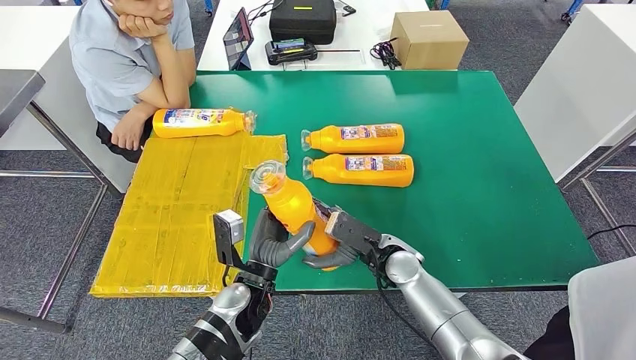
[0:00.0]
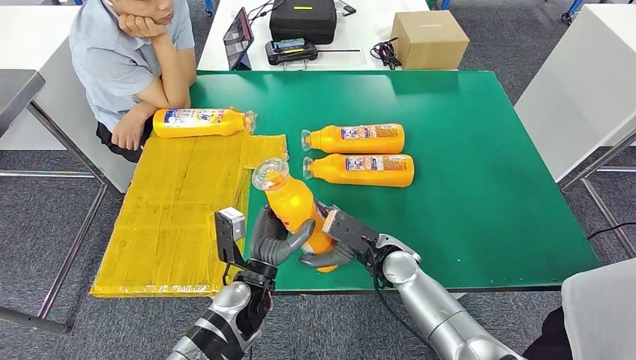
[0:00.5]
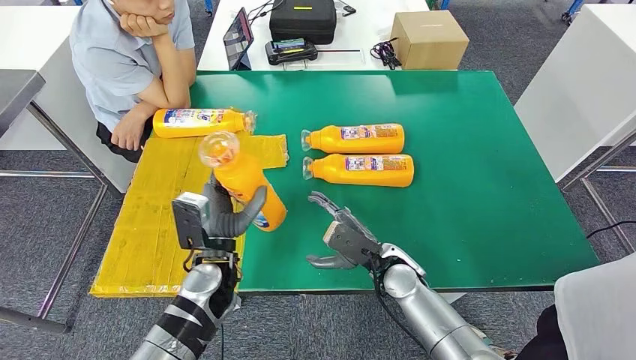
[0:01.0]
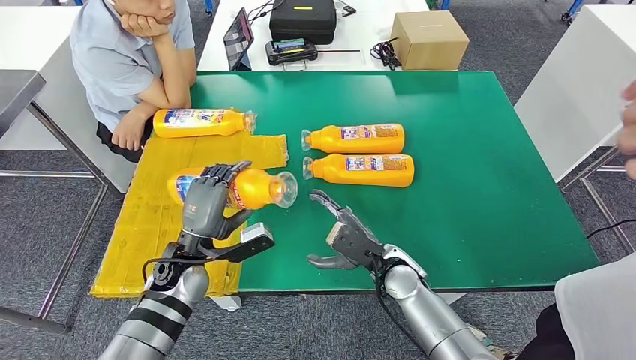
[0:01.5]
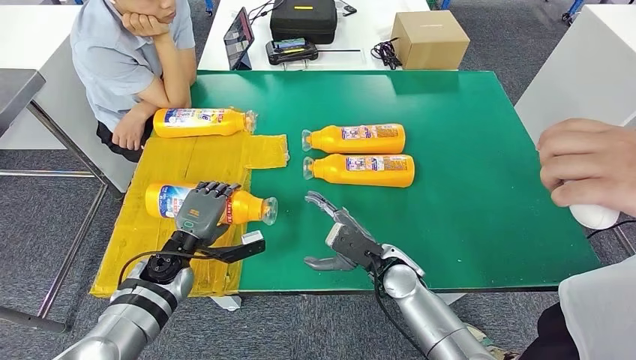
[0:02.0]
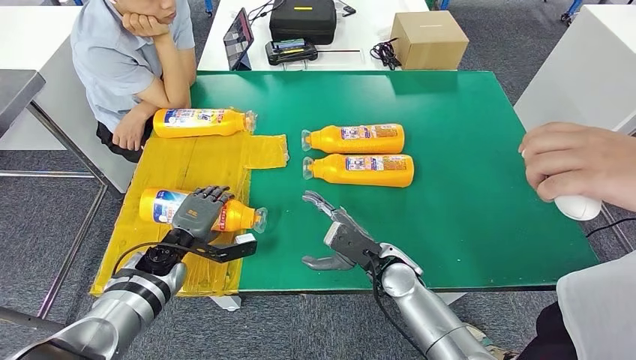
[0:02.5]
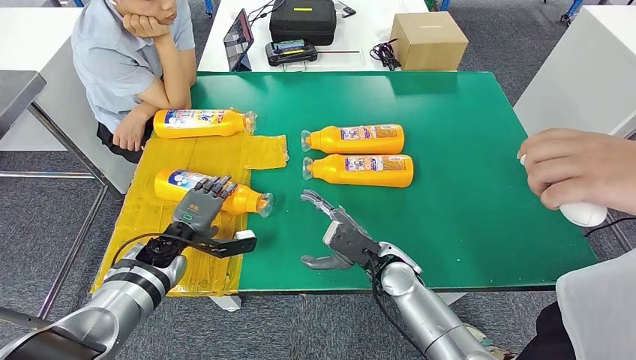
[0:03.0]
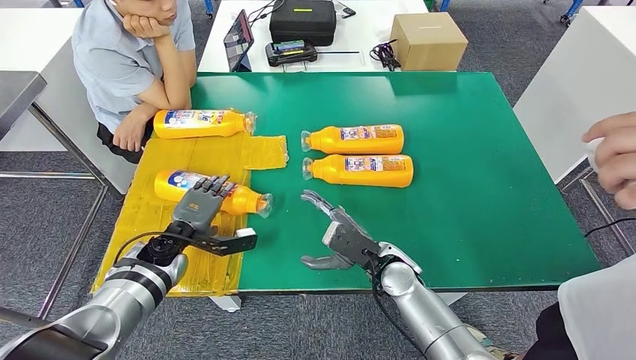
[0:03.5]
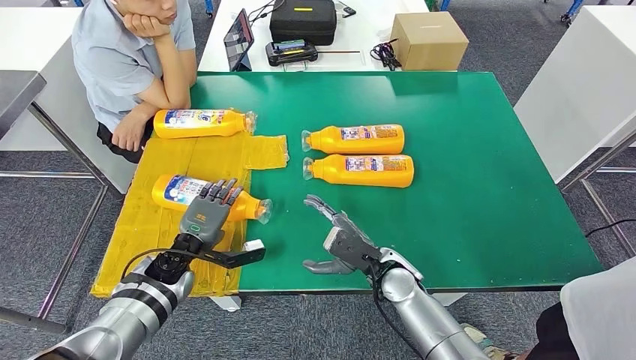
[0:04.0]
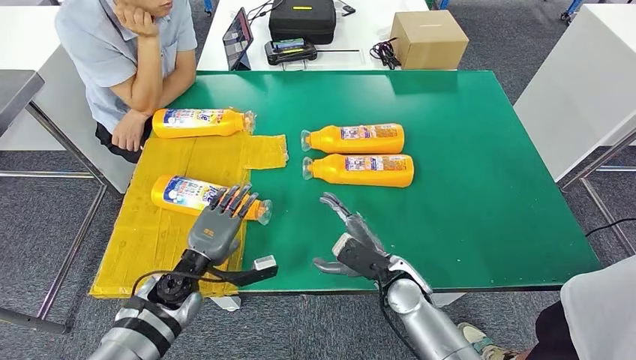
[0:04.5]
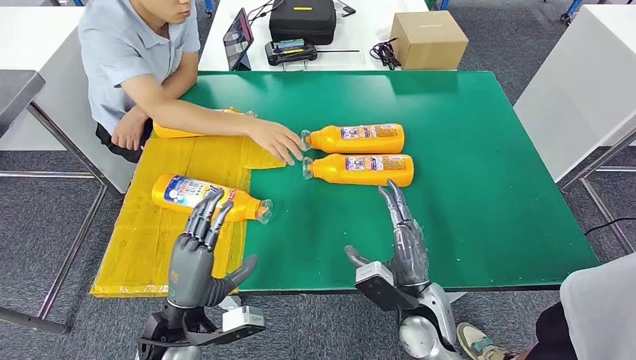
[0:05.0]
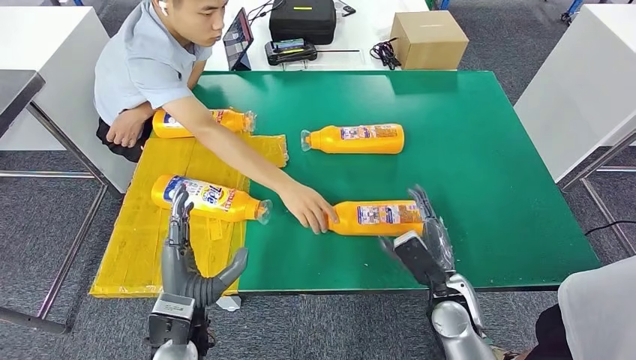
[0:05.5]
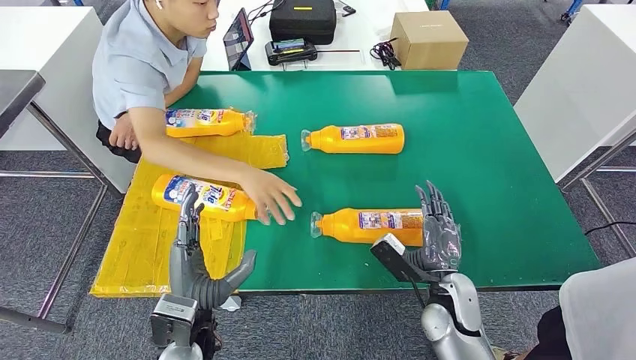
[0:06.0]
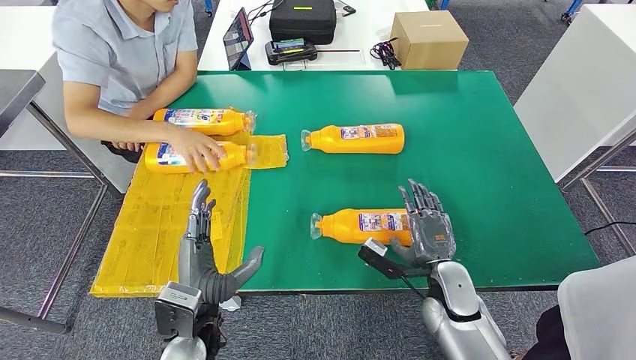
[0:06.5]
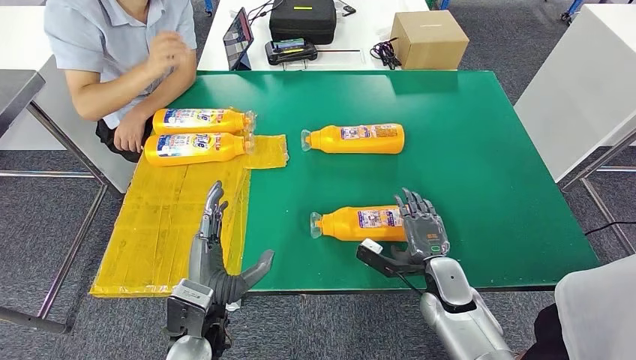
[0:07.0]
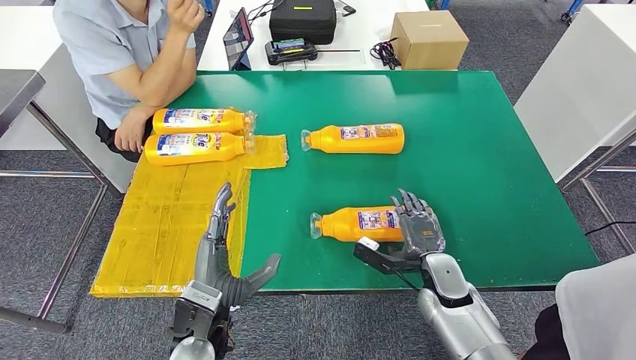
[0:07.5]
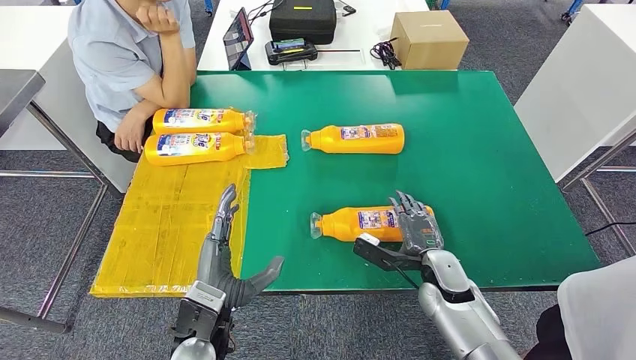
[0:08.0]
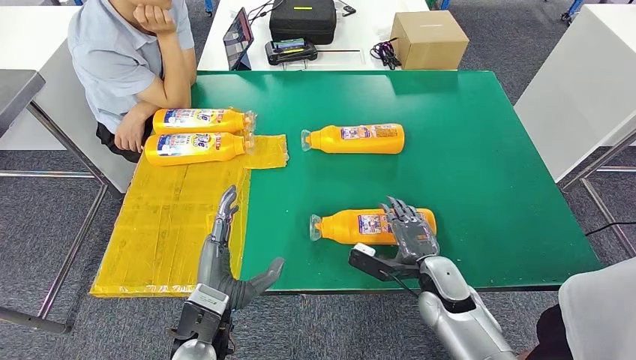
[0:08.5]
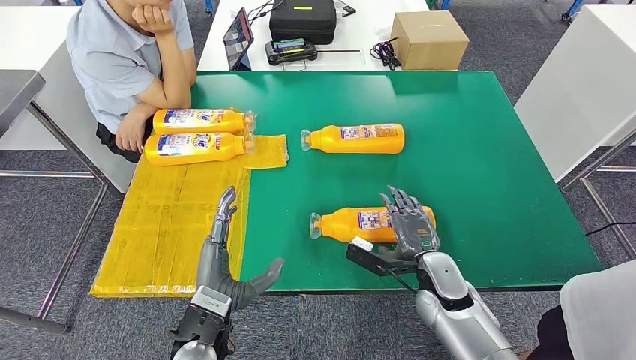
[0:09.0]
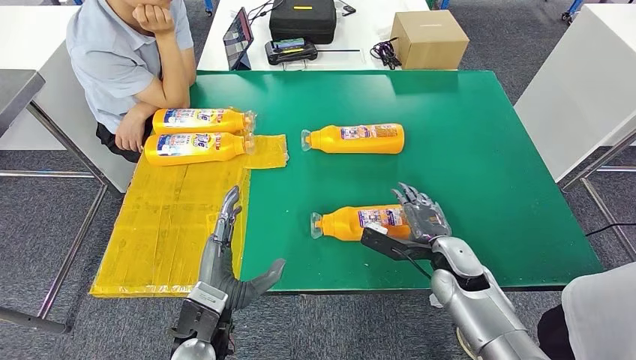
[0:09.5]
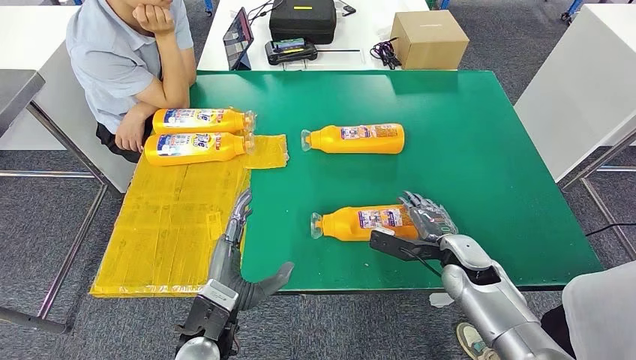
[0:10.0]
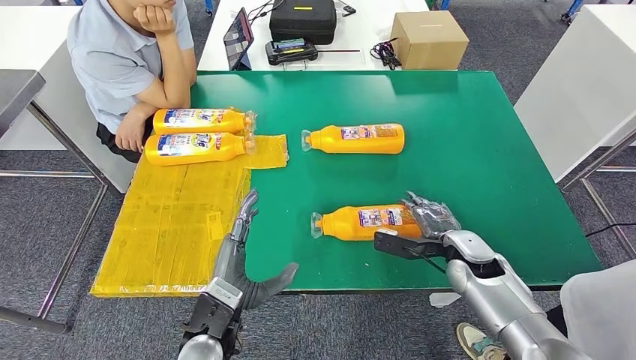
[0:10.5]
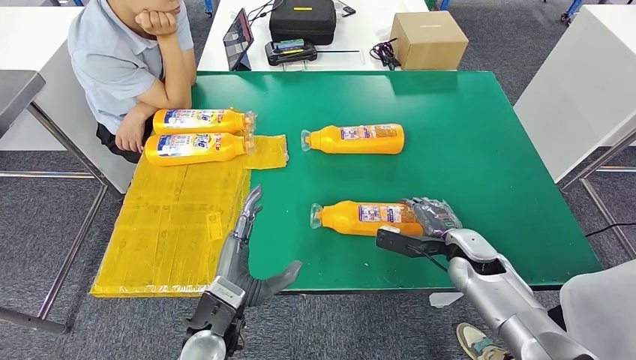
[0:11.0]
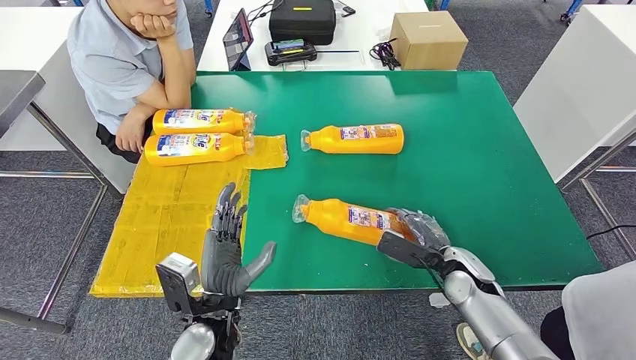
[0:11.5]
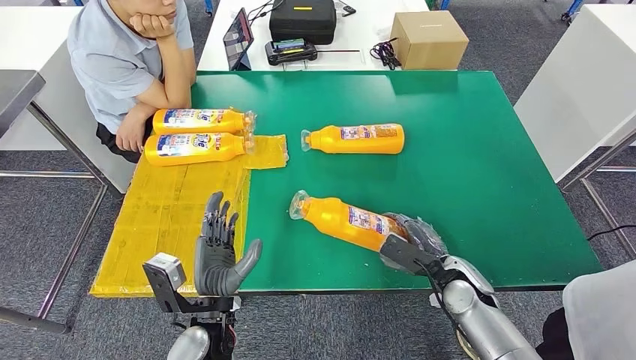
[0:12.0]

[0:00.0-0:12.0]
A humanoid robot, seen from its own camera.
Step, 0:00.0 to 0:03.5: Flip the bottle to face forward.
0:00.0 to 0:02.0: The left hand moves to the left and forward, approximately 15 cm.
0:08.0 to 0:10.0: The right hand shifts by some 5 cm.

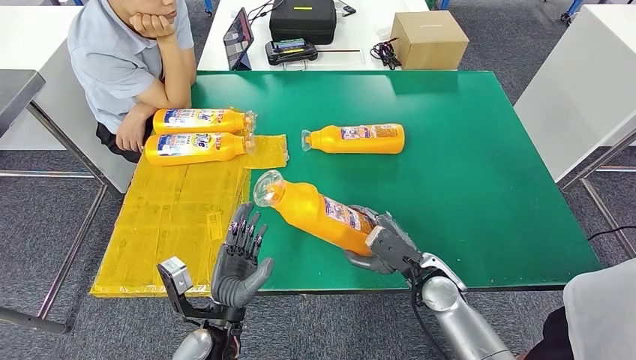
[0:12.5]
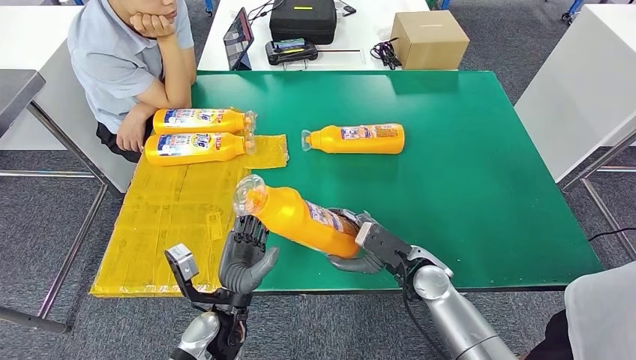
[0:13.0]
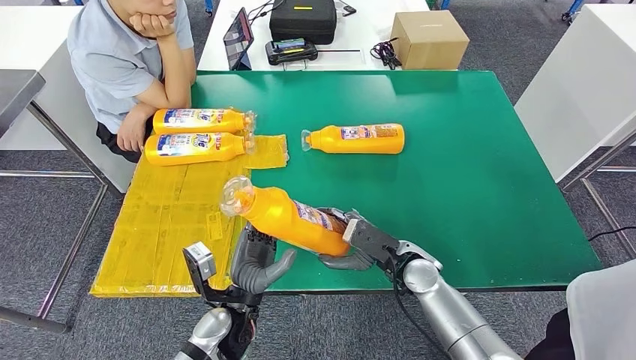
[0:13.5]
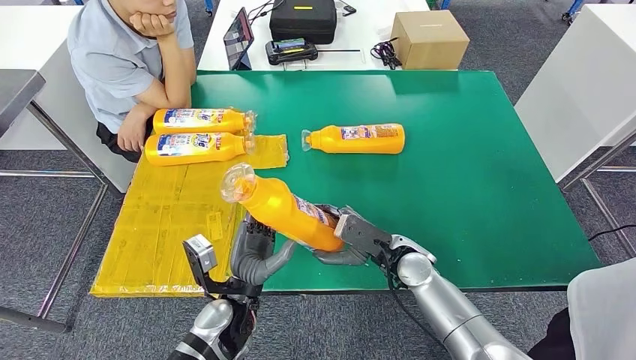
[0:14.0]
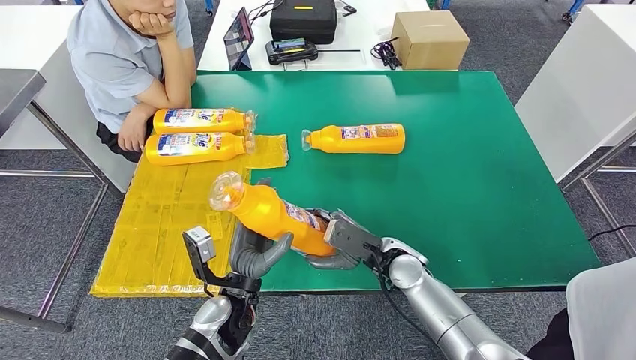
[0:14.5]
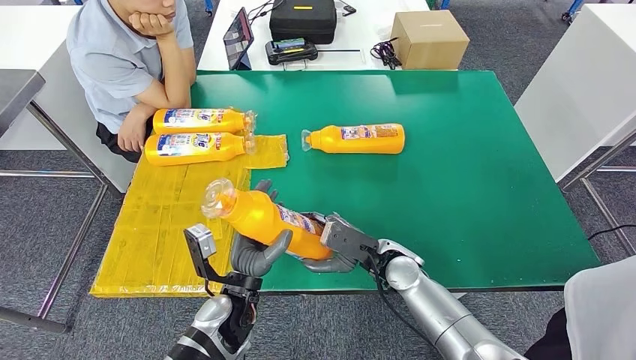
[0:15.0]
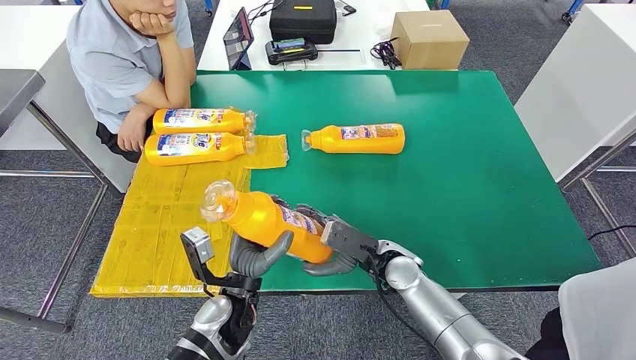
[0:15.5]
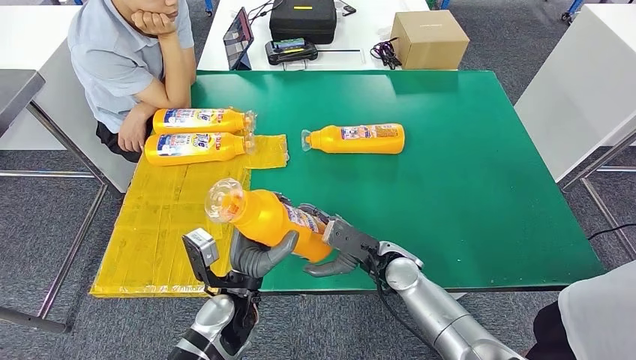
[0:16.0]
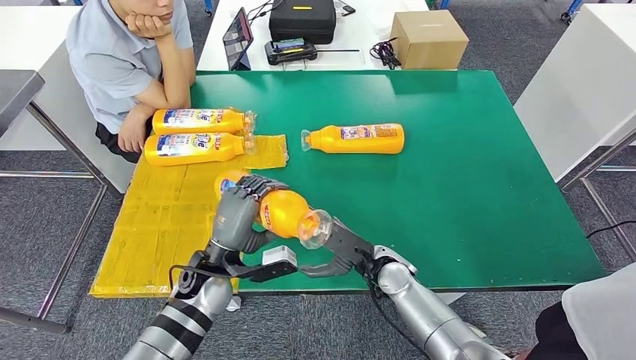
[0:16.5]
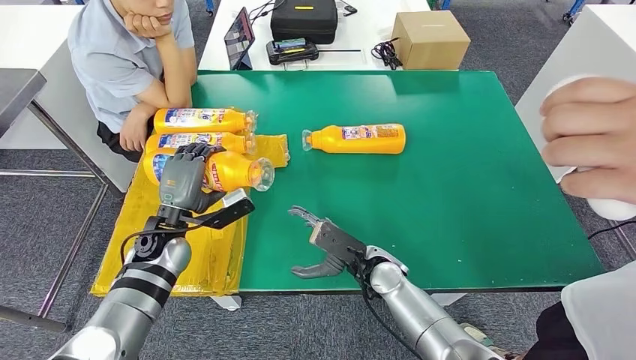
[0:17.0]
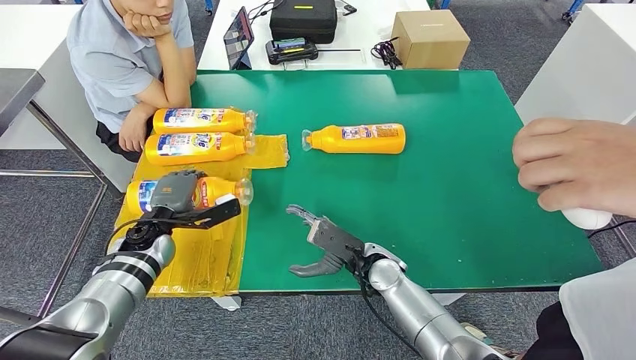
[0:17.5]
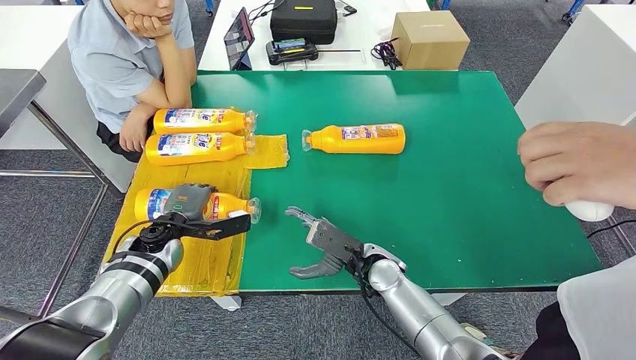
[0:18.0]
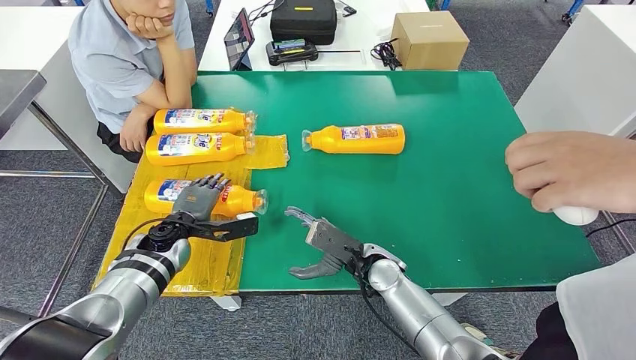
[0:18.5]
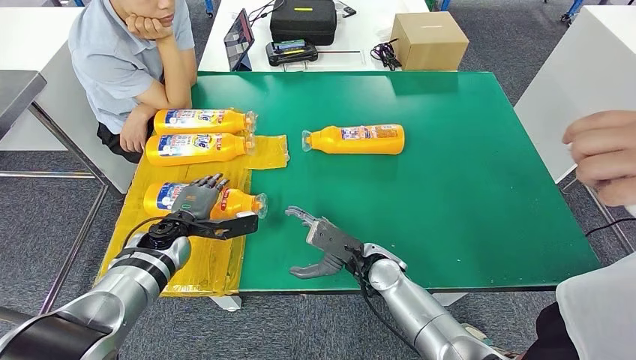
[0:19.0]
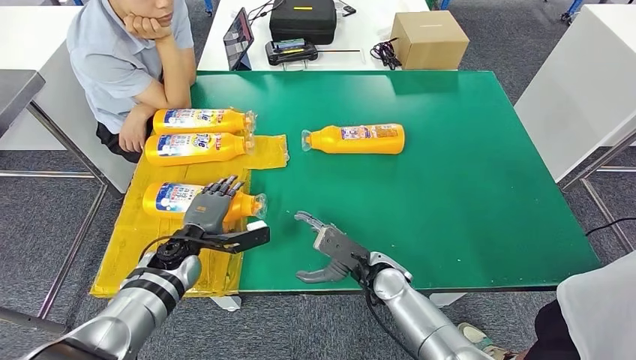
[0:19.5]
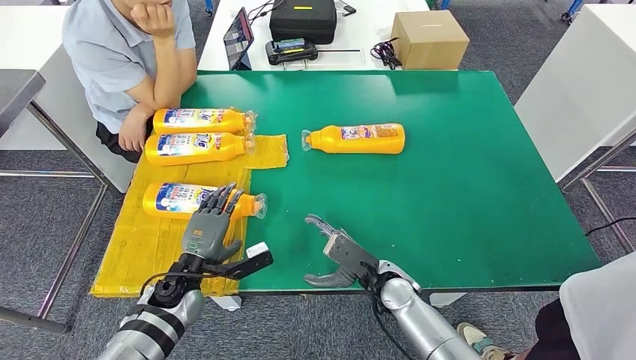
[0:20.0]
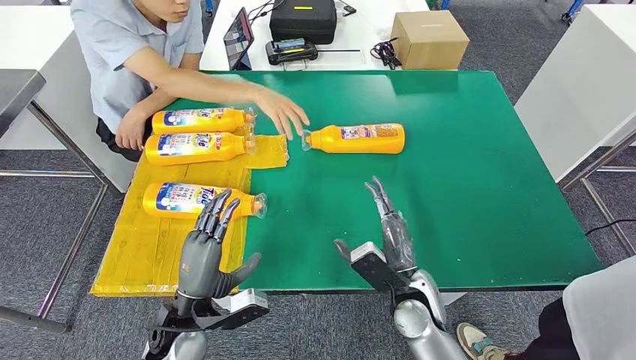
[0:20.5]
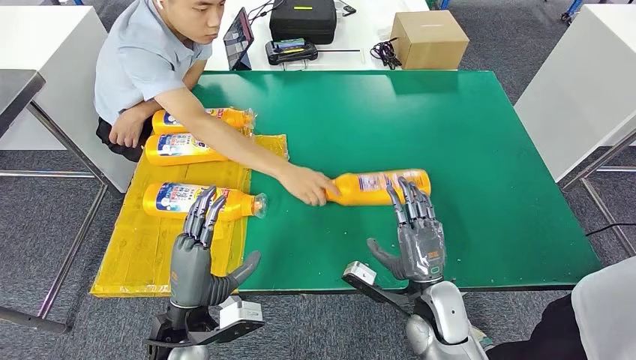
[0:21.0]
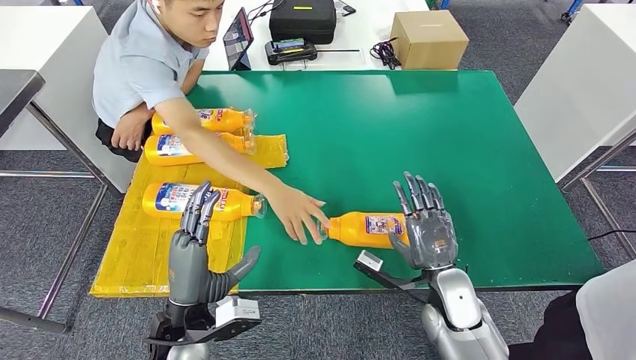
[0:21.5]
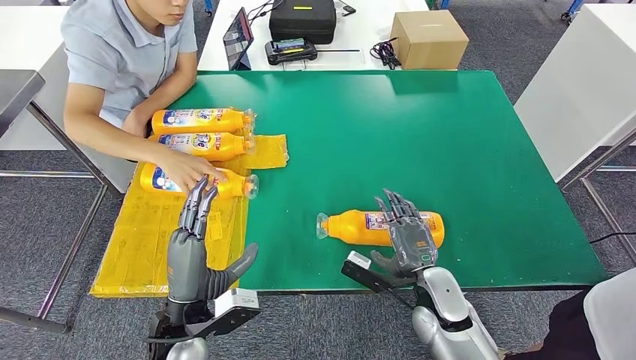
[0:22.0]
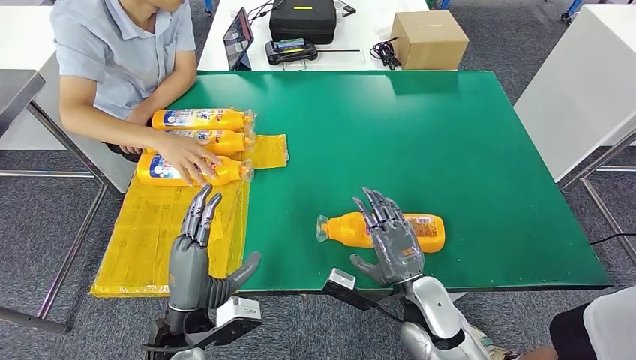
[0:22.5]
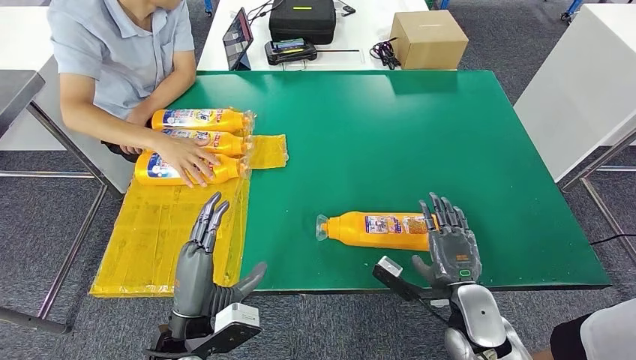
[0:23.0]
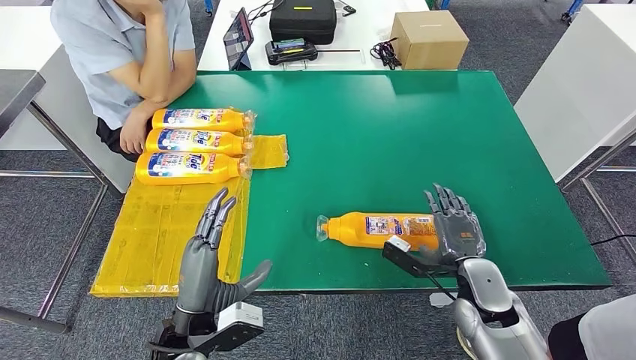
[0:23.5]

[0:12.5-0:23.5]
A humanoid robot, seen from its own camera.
Step, 0:13.5 to 0:18.0: Flip the bottle to face forward.
0:12.5 to 0:14.5: The left hand shifts by approximately 5 cm. Meanwhile the right hand shifts some 5 cm to the left.
0:14.5 to 0:16.0: There are only small adjustments of the hands.
0:16.0 to 0:18.0: The left hand is displaced to the left and forward by about 20 cm.
0:18.0 to 0:20.0: The left hand shifts roughly 10 cm backward.
